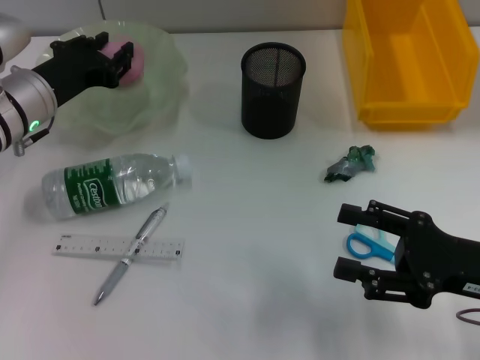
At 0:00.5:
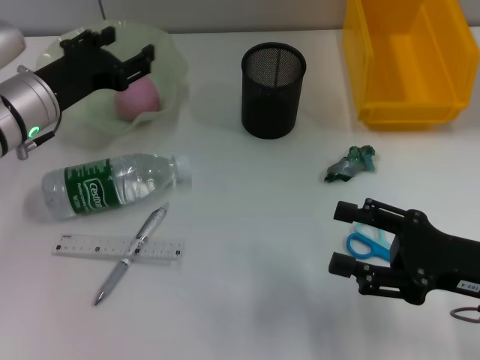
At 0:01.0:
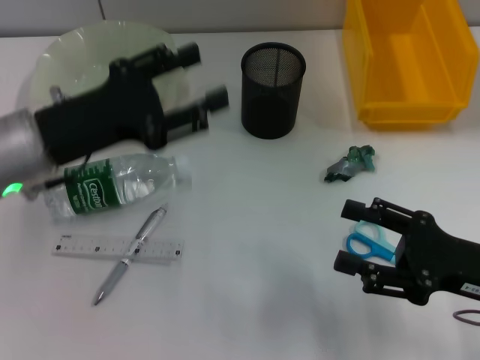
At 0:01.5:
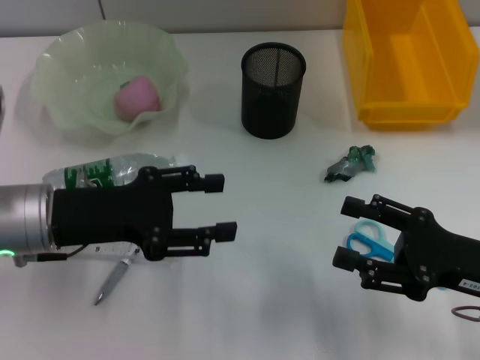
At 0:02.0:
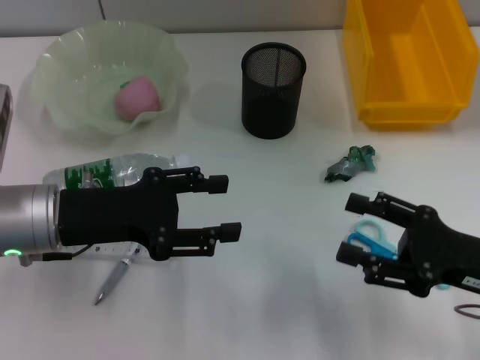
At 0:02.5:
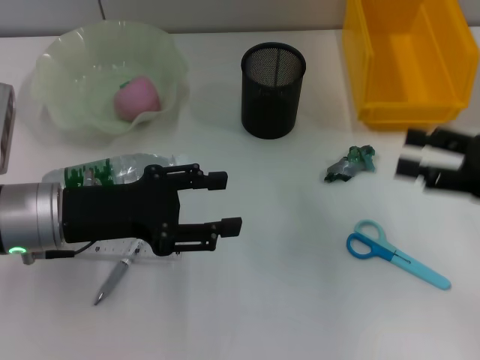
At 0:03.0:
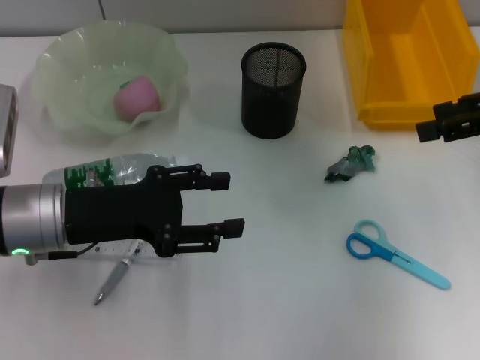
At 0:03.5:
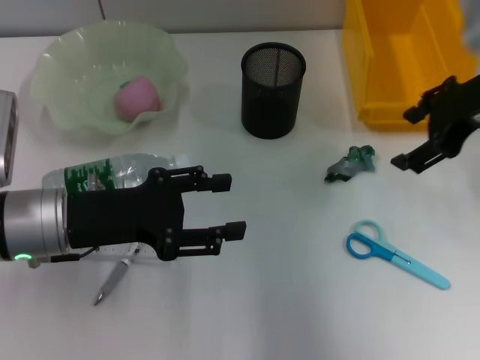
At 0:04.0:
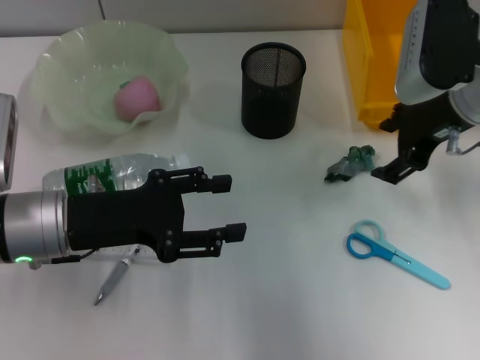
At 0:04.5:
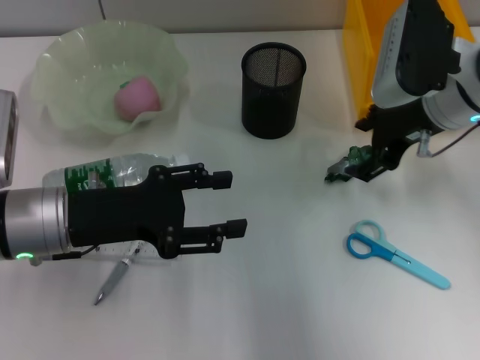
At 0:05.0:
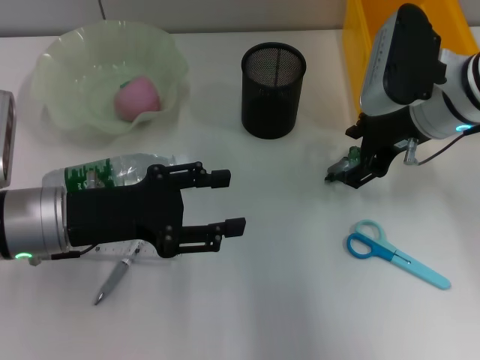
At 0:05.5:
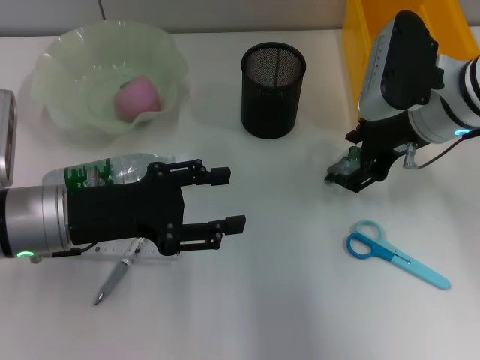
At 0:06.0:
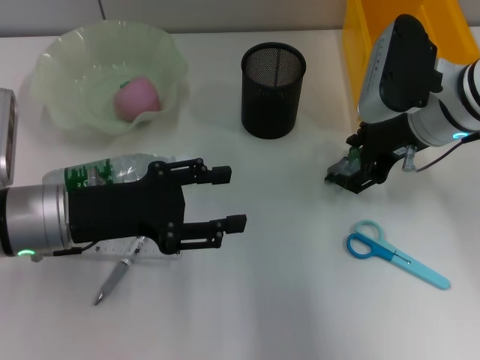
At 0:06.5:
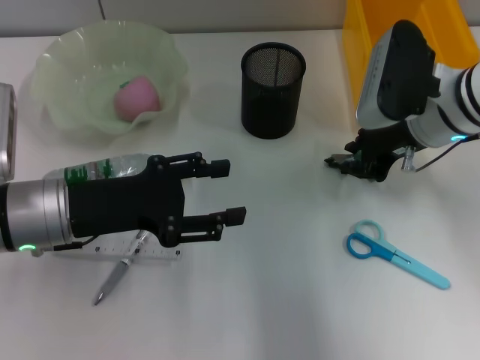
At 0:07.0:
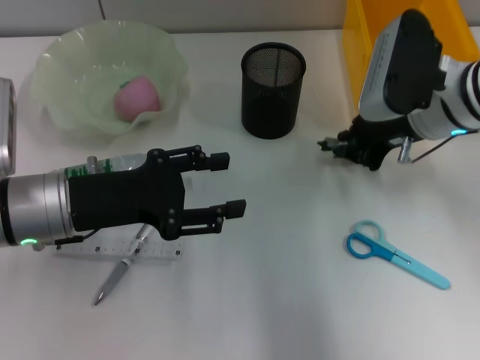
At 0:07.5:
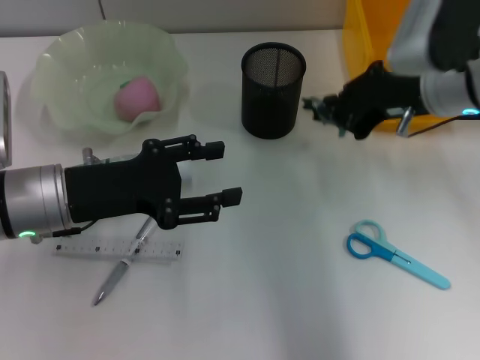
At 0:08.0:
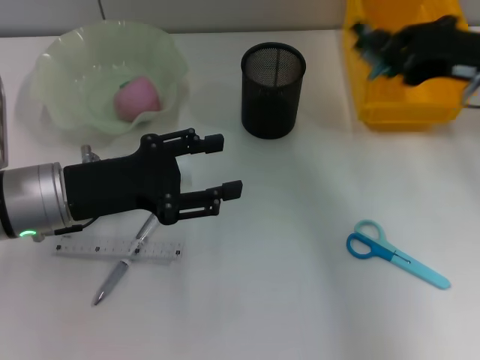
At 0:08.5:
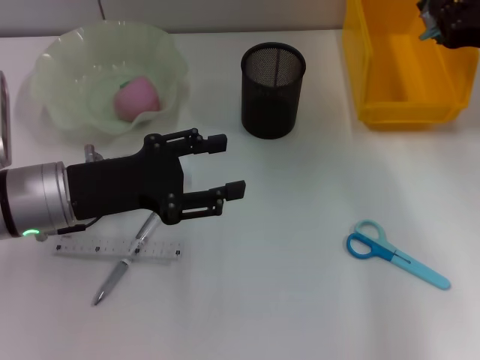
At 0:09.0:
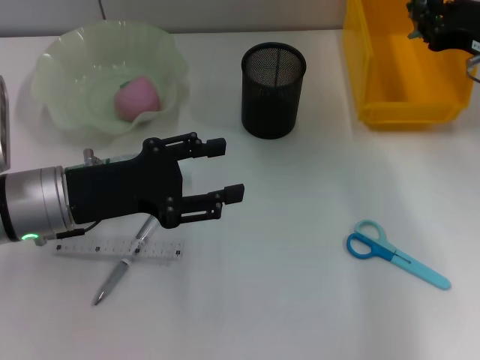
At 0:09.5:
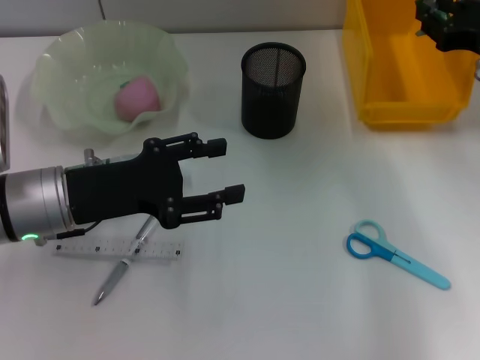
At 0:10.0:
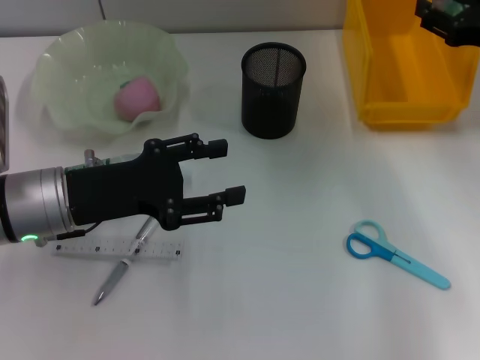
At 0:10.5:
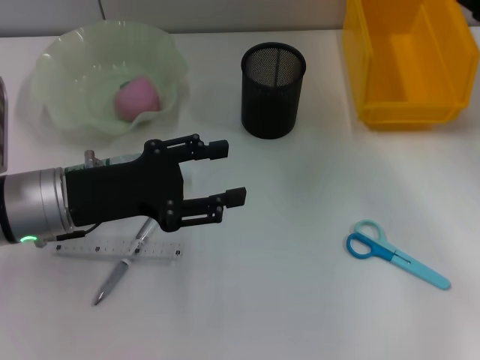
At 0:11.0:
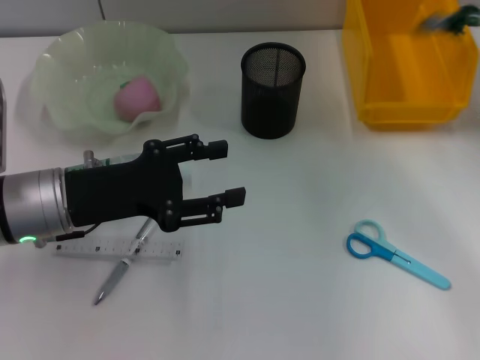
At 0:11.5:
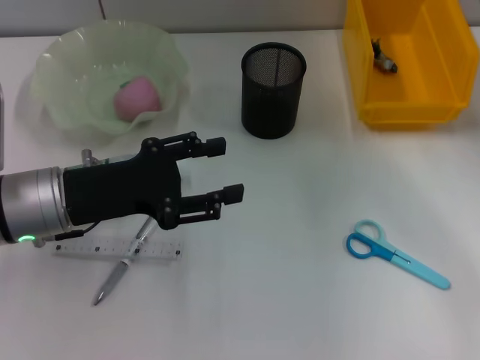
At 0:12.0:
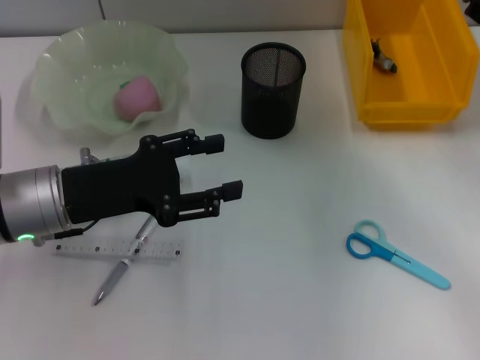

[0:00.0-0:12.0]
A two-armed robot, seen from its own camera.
Step, 0:00.5 to 0:06.0: Grab the plastic with the right hand.
Step, 0:06.5 to 0:11.0: Place the plastic into the trash can with the right hand.
0:00.0 to 0:02.0: The left gripper travels backward by approximately 10 cm, and opens.
0:02.0 to 0:04.0: The right gripper moves forward and upward, approximately 20 cm.
0:04.0 to 0:06.0: There are only small adjustments of the grippers.
0:06.0 to 0:08.0: The right gripper heads to the right and upward, covering approximately 10 cm, and closes its fingers.
0:08.0 to 0:10.0: The right gripper shifts by about 5 cm, and opens.
0:10.0 to 0:12.0: The right gripper is displaced backward by some 5 cm.

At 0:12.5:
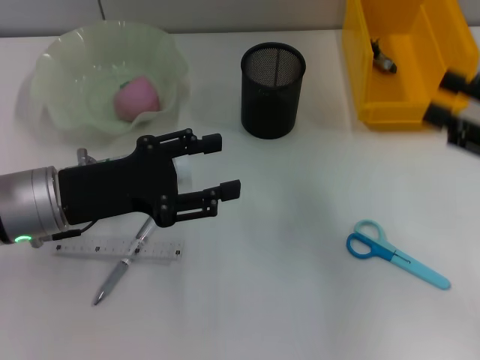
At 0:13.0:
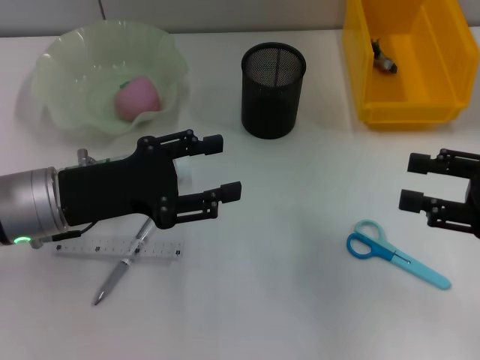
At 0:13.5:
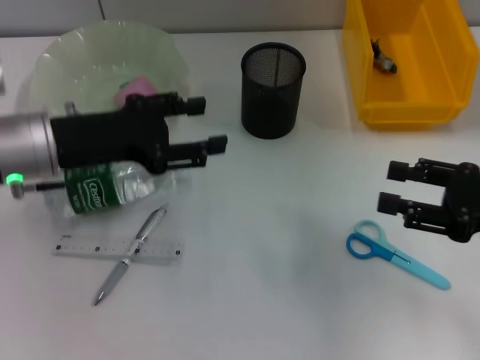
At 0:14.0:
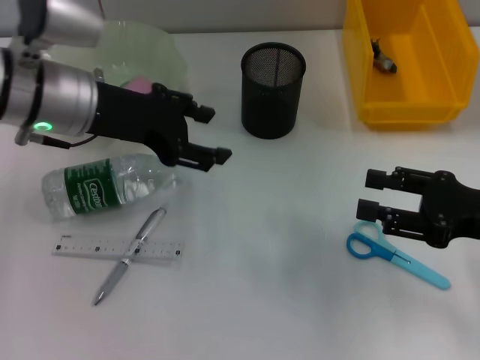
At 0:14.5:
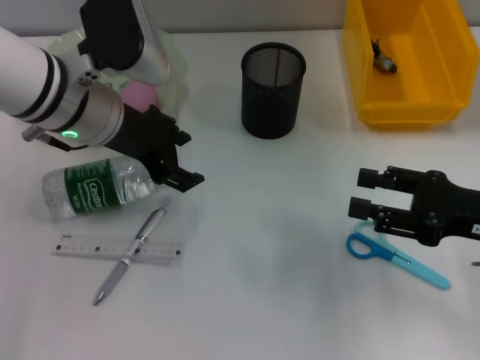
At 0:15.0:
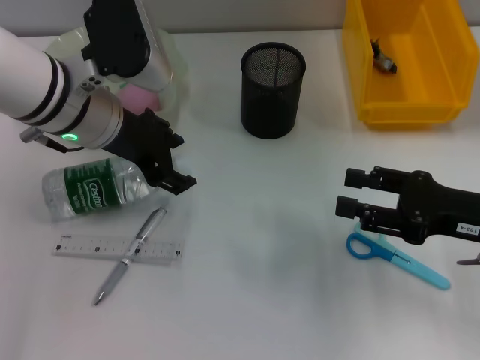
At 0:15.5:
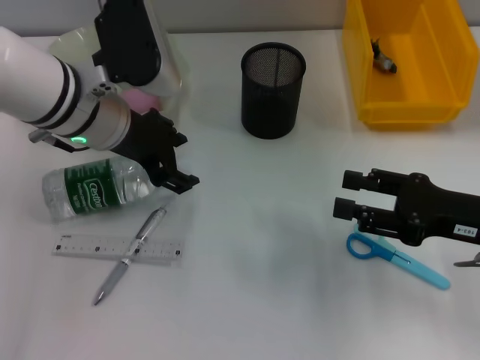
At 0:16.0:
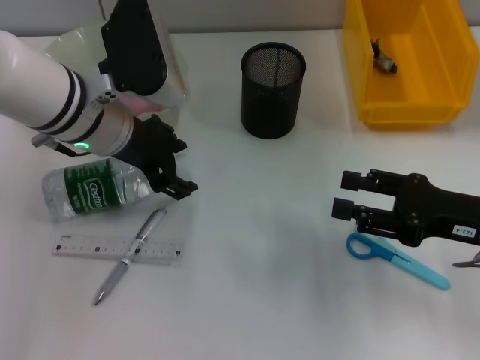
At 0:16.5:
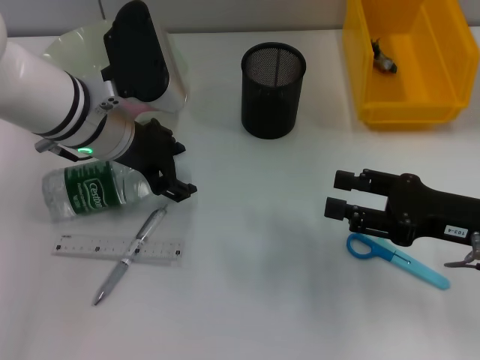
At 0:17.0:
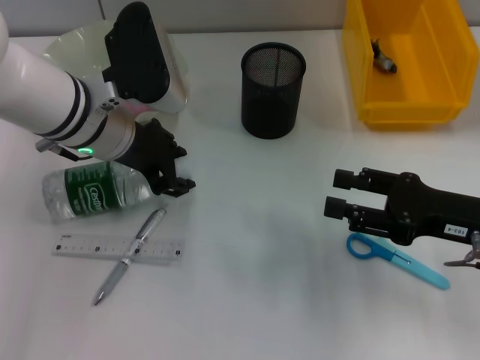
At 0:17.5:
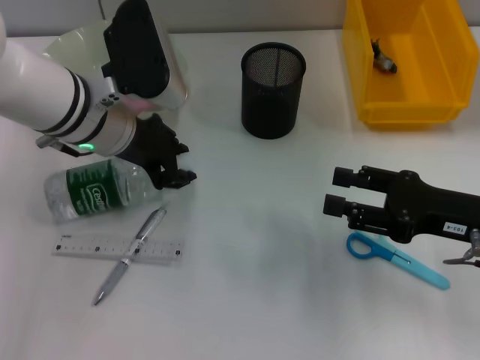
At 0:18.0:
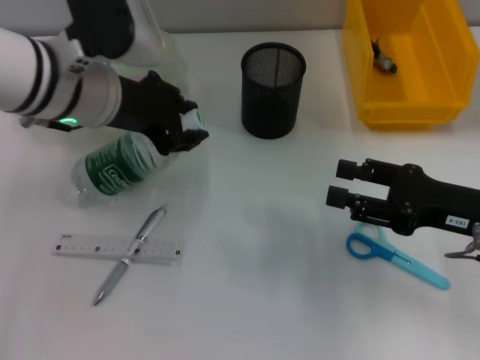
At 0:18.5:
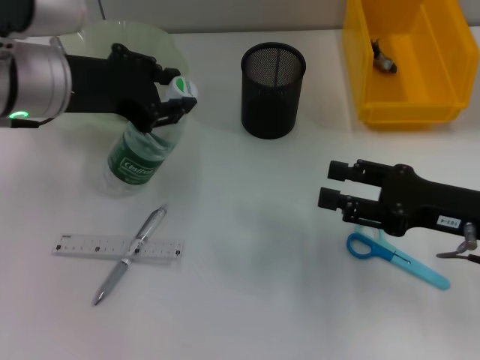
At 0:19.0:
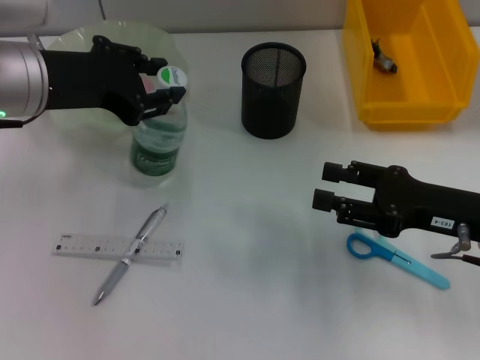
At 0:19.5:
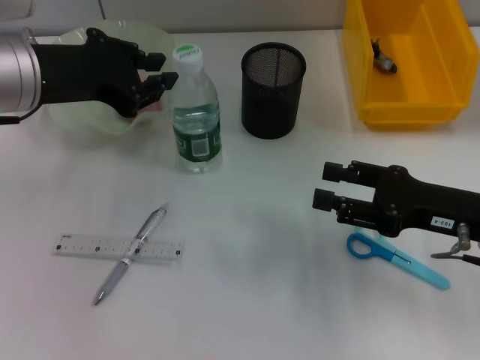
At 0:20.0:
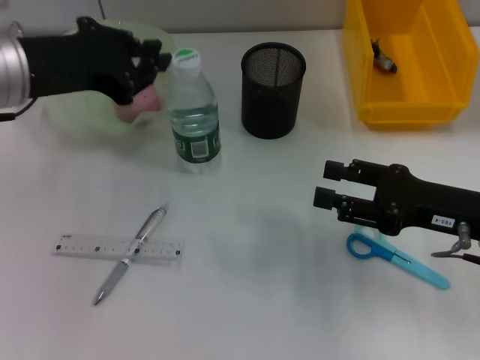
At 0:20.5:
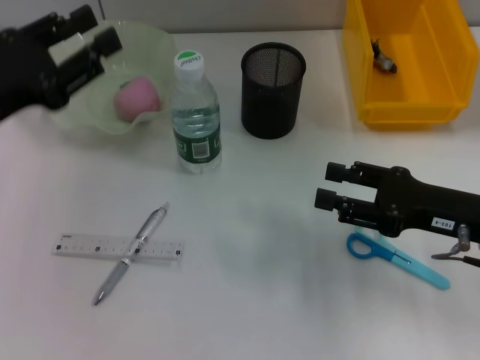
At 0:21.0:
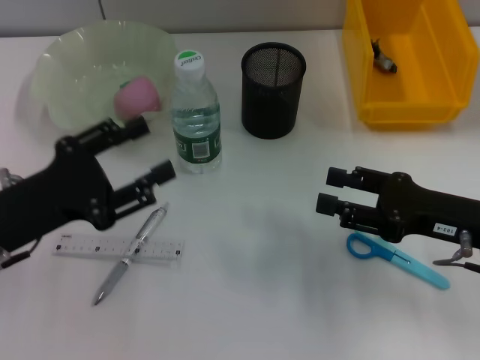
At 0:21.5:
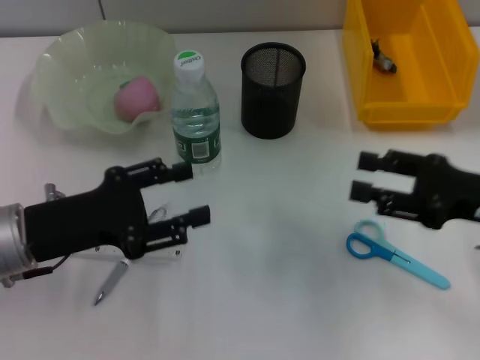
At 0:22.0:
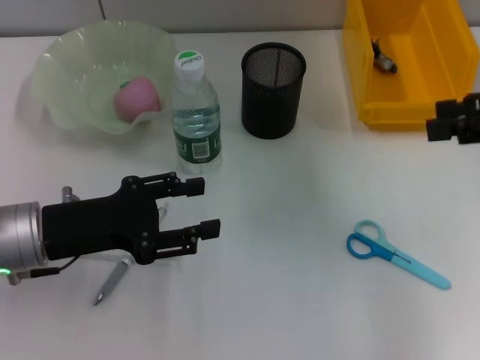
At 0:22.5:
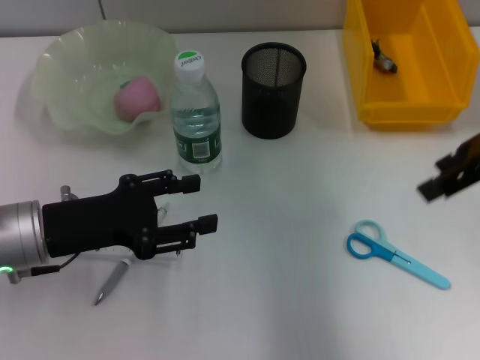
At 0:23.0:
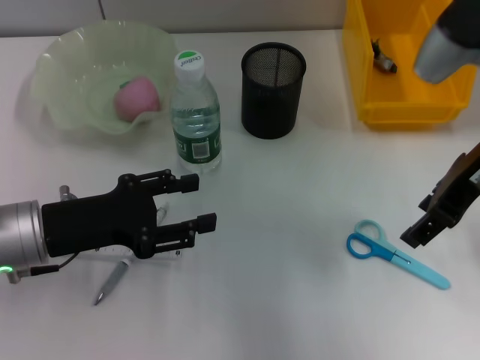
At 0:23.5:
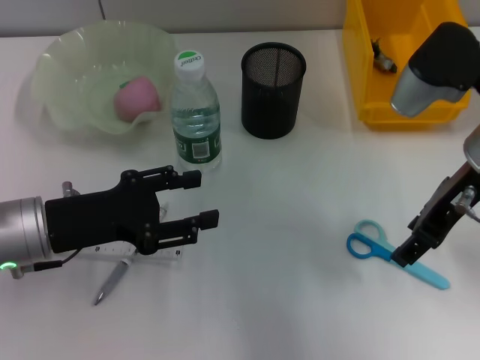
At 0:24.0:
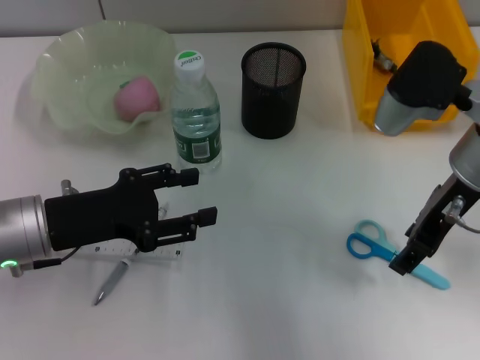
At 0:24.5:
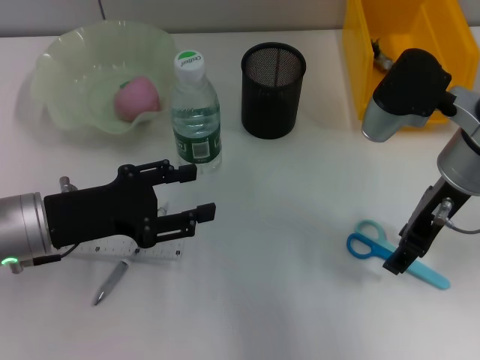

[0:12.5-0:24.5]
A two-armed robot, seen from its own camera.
Step, 0:12.5 to 0:17.0: Grab the water bottle with the left hand.
Step, 0:17.5 to 0:19.5: Place the water bottle on the table with the left hand.
0:12.5 to 0:14.5: The left gripper goes some 10 cm forward, upward and to the right, while the right gripper moves about 5 cm.
0:14.5 to 0:16.5: The grippers move only a little.
0:16.5 to 0:18.5: The left gripper travels upward by roughly 5 cm.
0:18.5 to 0:20.5: The left gripper heads to the left and backward, covering about 10 cm.
0:20.5 to 0:22.5: The right gripper is displaced upward by approximately 15 cm. The left gripper heads downward, covering about 5 cm, and opens.
0:22.5 to 0:24.5: The right gripper moves downward and to the left, approximately 10 cm.

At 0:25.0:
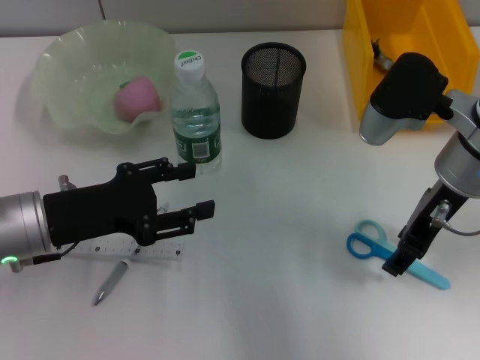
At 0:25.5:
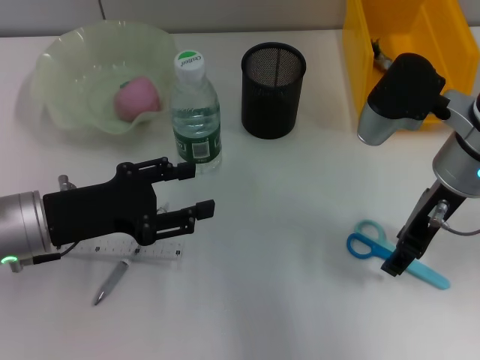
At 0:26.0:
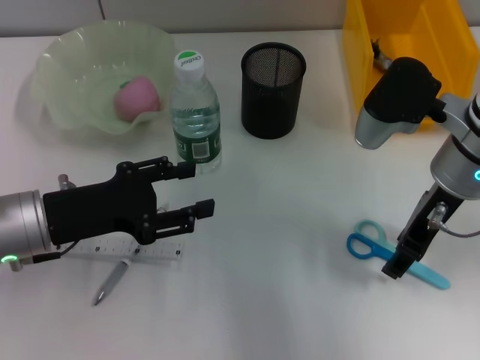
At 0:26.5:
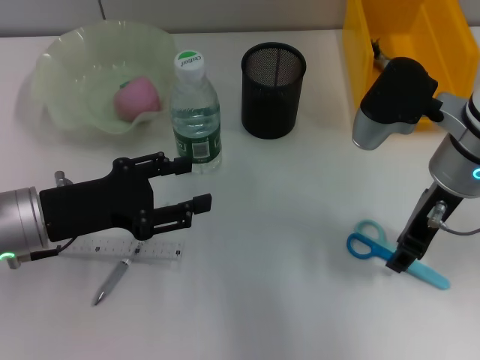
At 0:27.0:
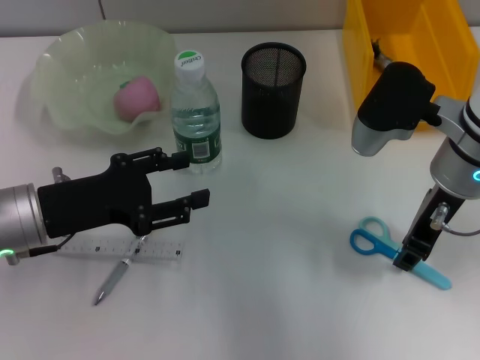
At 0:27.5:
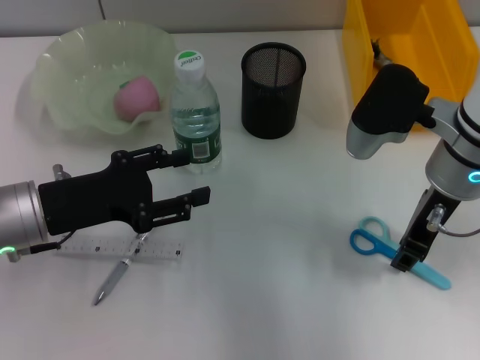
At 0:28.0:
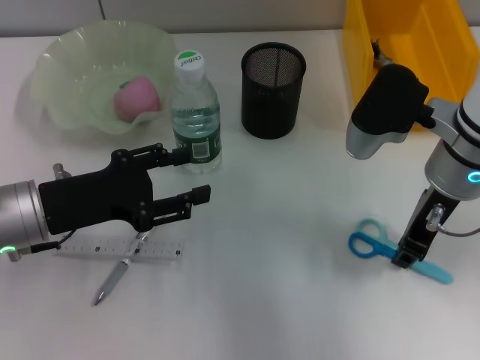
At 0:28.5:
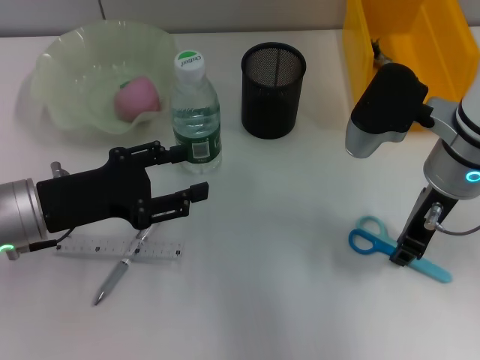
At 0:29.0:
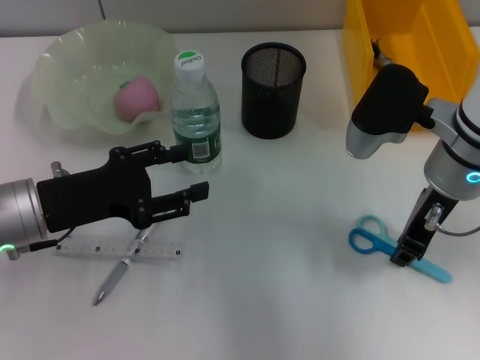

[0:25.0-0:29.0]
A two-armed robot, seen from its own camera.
Step, 0:25.0 to 0:28.5: Grab the blue scissors with the right hand.
0:25.0 to 0:27.0: The grippers make only small movements.
0:27.0 to 0:29.0: The two grippers keep their place.
